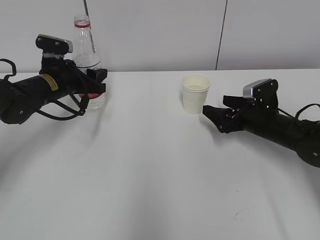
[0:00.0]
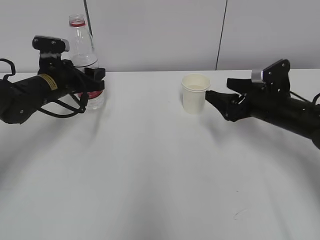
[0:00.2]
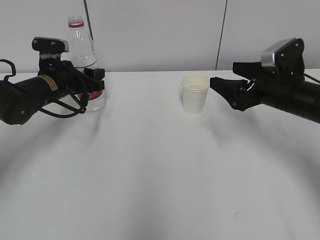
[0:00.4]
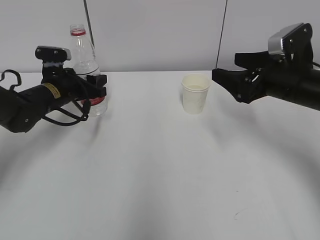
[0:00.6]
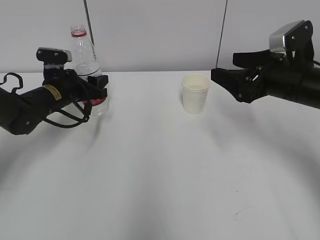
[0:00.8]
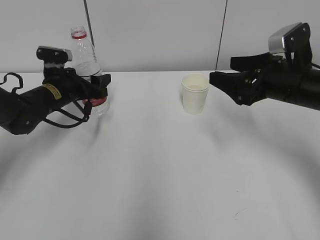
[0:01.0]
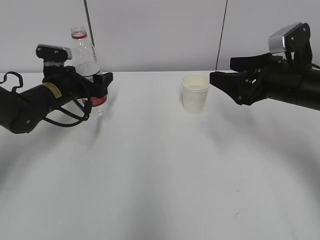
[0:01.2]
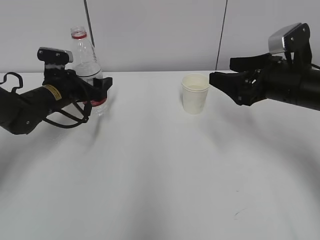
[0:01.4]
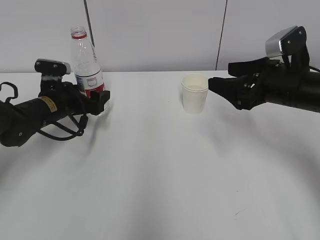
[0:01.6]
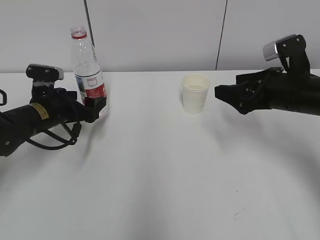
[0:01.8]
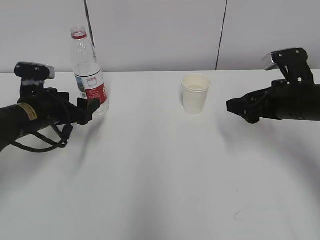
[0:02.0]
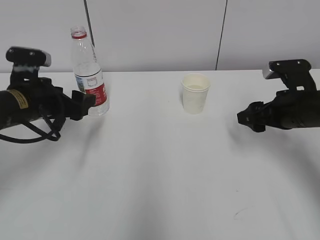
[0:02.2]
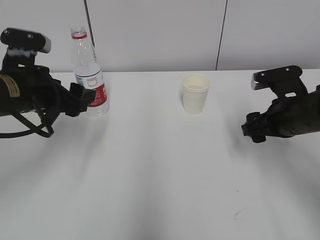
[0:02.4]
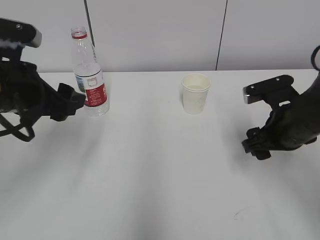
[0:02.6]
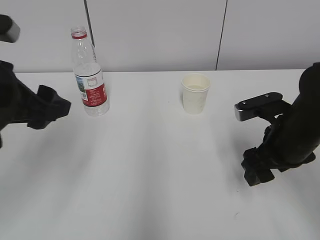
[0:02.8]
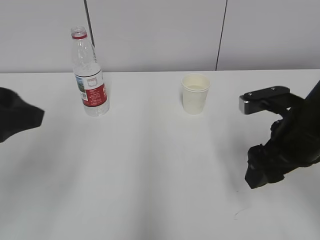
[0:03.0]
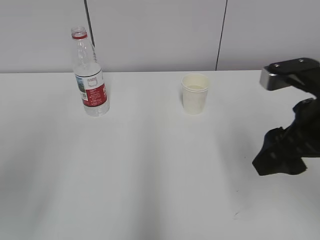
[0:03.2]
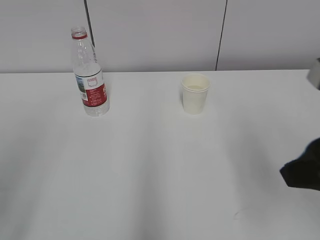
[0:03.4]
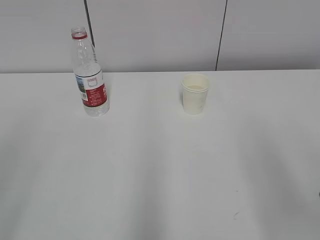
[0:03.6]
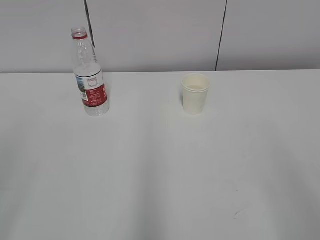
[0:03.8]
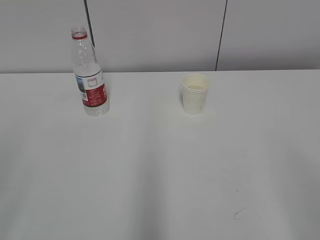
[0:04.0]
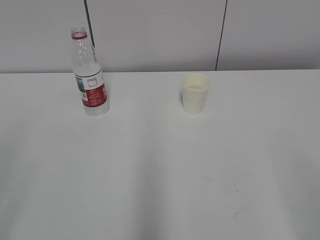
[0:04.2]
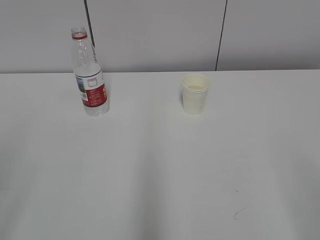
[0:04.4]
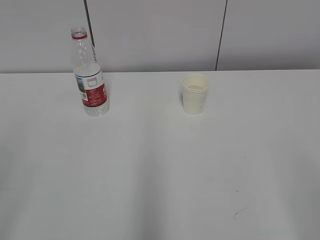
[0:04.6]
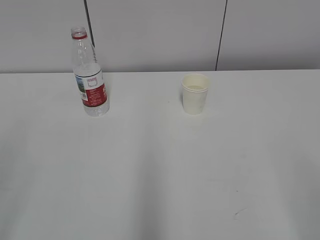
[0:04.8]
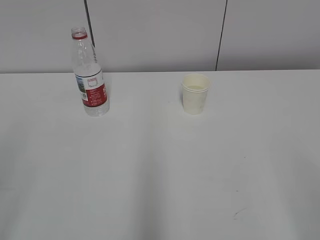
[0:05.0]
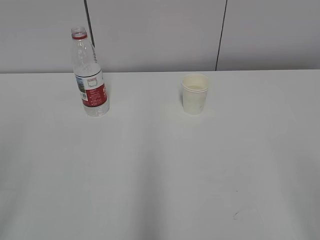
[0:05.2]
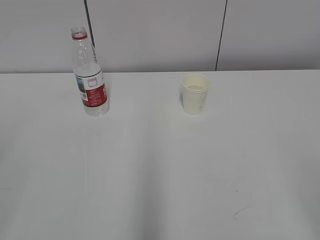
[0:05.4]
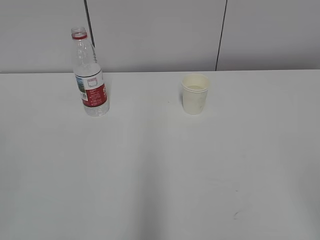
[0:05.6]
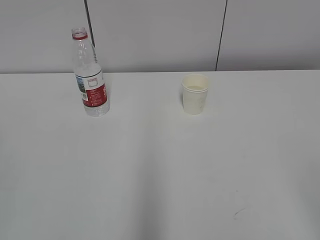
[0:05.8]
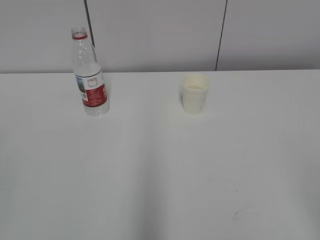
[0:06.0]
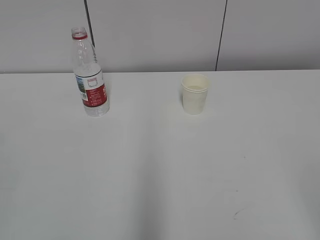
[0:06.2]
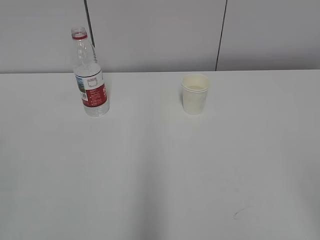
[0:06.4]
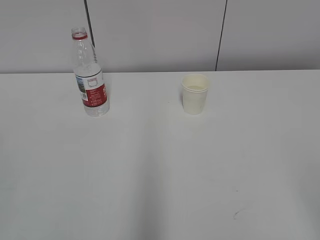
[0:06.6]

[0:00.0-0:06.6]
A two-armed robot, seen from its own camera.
0:00.0 to 0:01.6: The left gripper opens up, while the right gripper goes approximately 15 cm upward and backward, and closes up.
0:01.6 to 0:03.2: The left gripper heads backward and upward, covering some 35 cm. Meanwhile the right gripper heads backward and upward, covering some 10 cm.
0:03.2 to 0:05.0: The left gripper goes some 10 cm backward and to the left. Meanwhile the right gripper moves backward, approximately 20 cm.

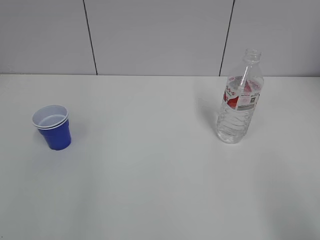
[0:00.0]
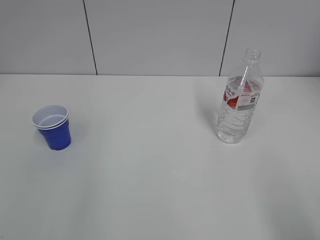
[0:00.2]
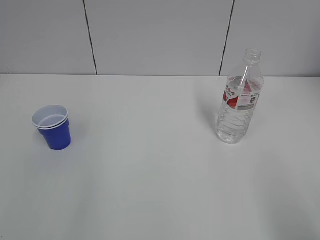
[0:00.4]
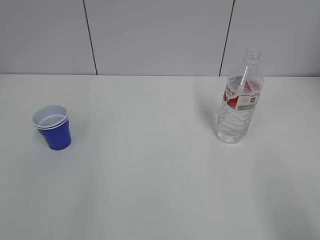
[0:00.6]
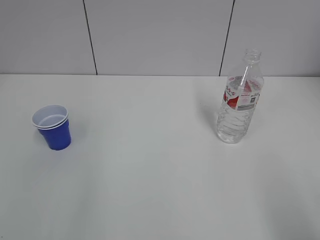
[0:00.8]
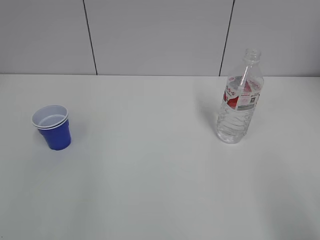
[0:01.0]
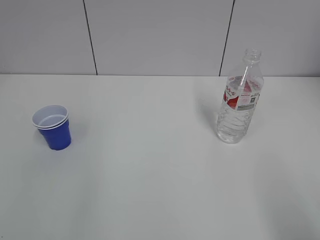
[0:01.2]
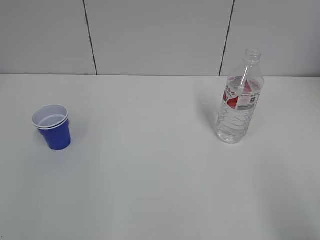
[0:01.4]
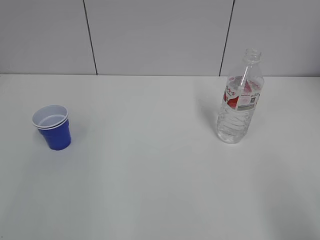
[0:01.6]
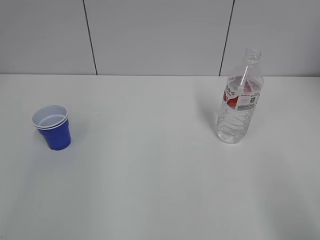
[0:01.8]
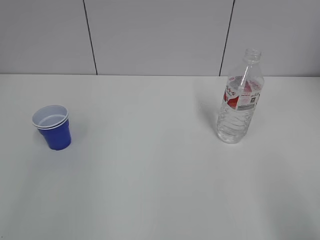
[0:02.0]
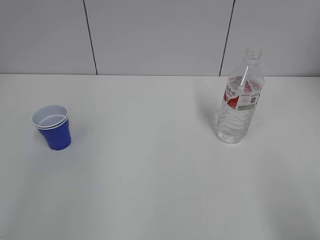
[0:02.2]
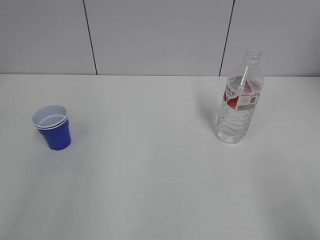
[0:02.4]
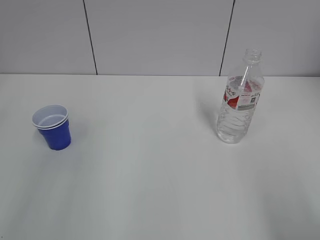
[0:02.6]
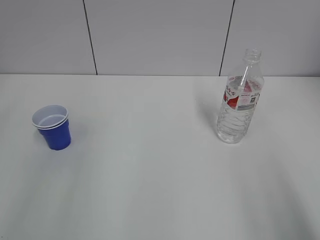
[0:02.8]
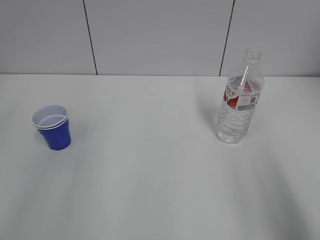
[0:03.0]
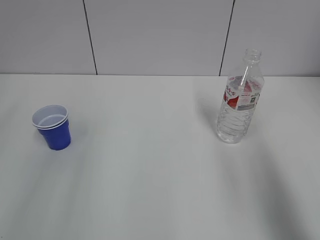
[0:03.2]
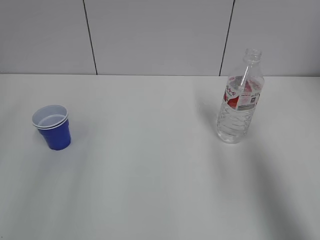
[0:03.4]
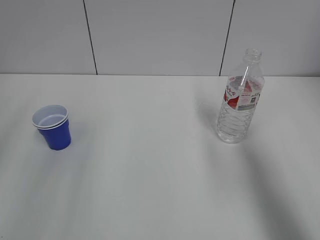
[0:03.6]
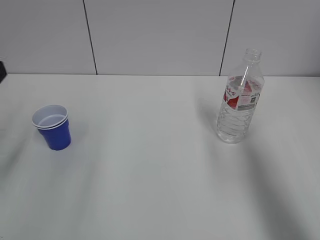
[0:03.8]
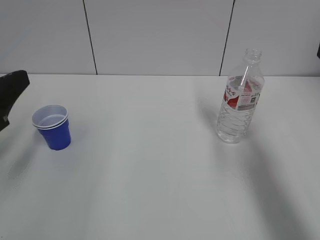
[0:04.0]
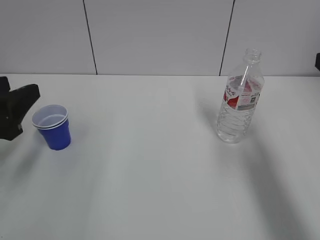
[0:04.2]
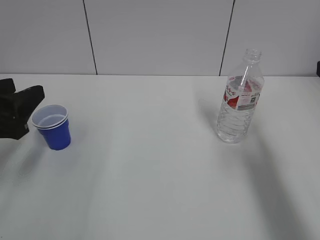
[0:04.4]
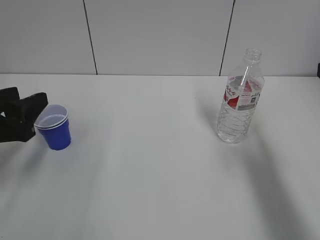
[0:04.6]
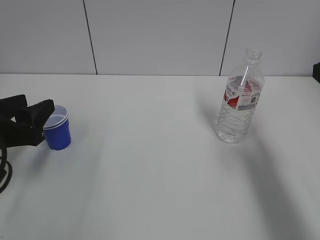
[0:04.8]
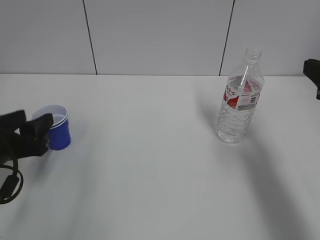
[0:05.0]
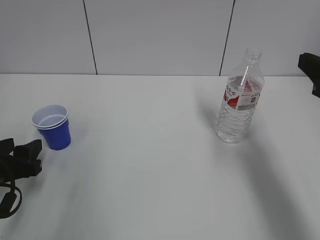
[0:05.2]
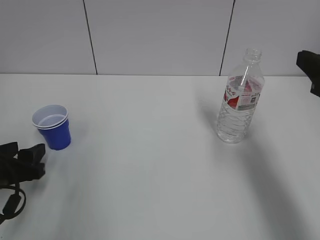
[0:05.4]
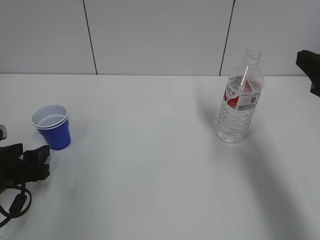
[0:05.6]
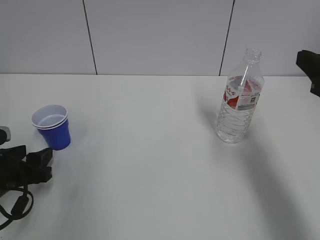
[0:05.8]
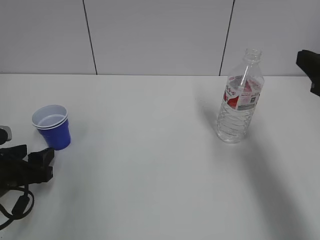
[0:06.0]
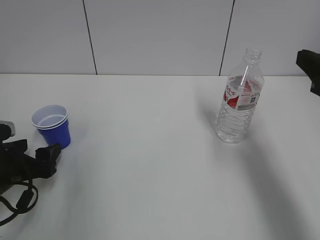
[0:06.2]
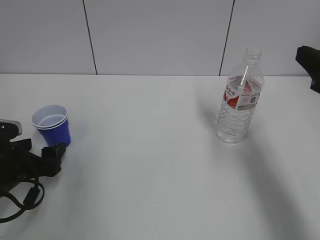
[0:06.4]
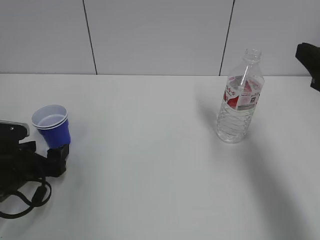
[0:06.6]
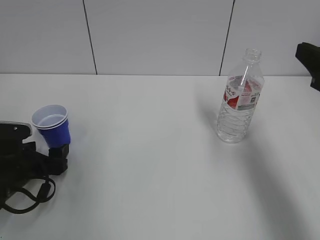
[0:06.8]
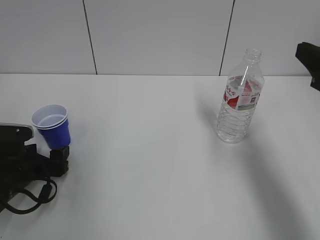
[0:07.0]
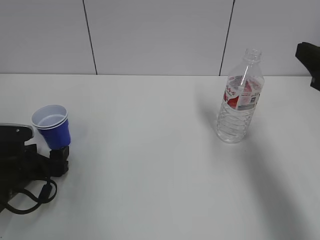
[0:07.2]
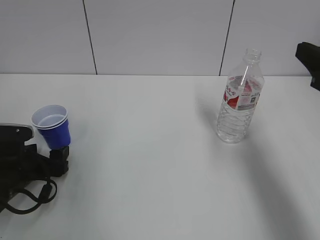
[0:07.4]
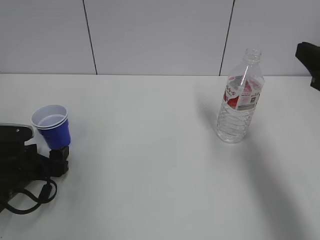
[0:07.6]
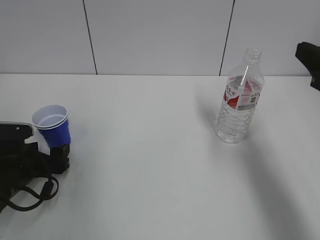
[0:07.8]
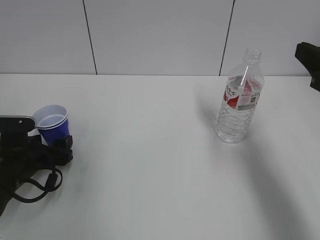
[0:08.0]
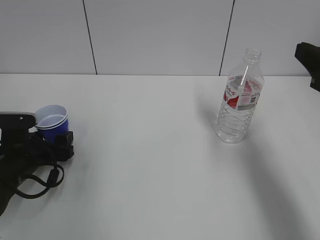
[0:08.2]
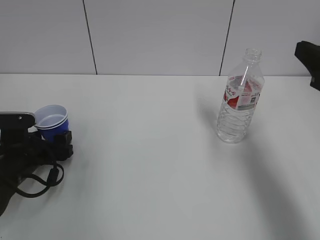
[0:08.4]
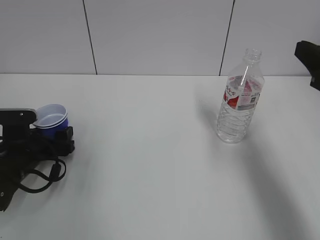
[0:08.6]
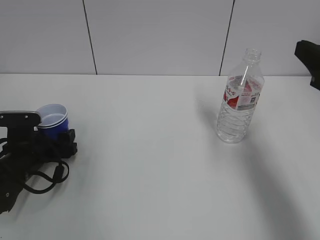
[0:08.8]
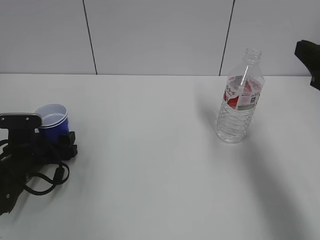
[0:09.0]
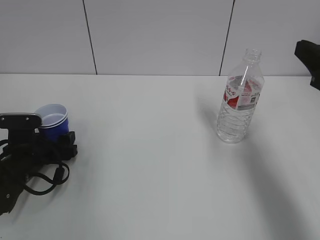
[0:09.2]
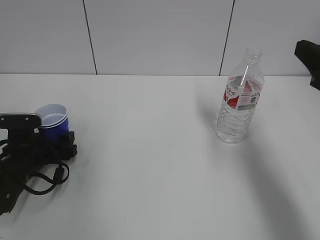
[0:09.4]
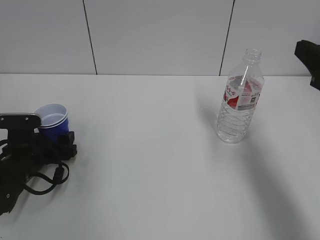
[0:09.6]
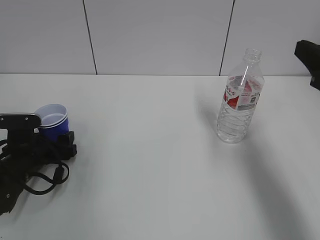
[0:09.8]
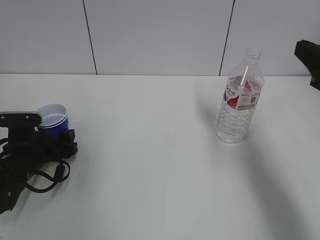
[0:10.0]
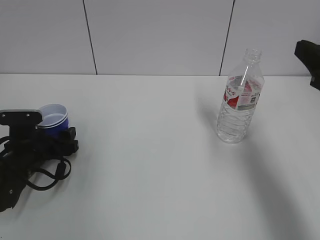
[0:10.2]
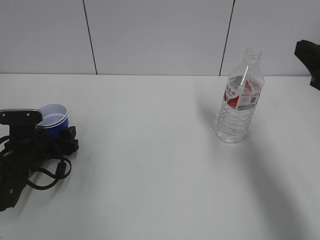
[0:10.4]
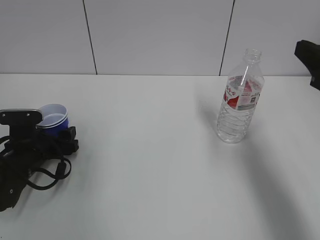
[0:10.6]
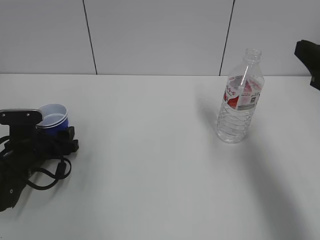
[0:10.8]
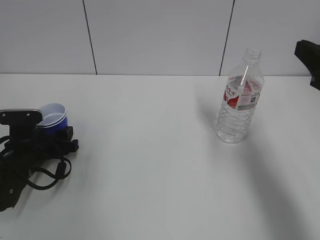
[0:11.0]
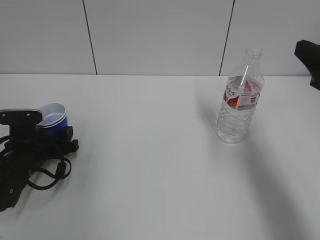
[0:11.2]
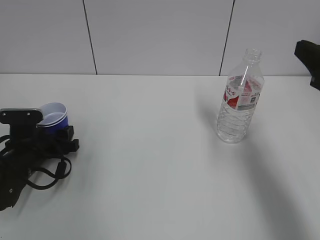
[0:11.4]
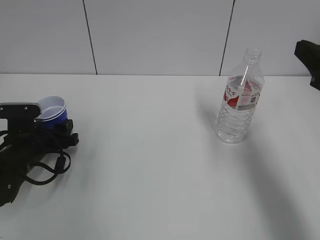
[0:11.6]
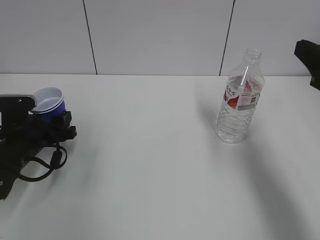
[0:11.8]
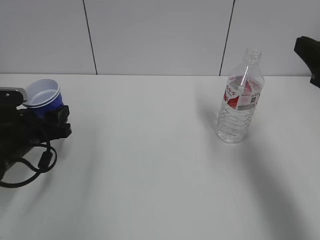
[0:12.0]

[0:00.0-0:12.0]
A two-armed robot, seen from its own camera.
Step, 0:00.0 to 0:11.4: Grab the paper cup with the left hand.
0:03.0 to 0:04.4: The right gripper heads forward and downward, covering about 20 cm; the left gripper goes roughly 15 cm forward, downward and to the right.
0:04.4 to 0:06.0: The right gripper closes. Meanwhile the left gripper goes some 15 cm downward.
0:06.0 to 0:07.6: The left gripper moves roughly 5 cm.
0:07.6 to 0:09.0: There are only small adjustments of the grippers.
0:09.0 to 0:10.4: Both grippers stay about where they are.
0:10.4 to 0:12.0: The left gripper is displaced upward by about 5 cm, and closes up.

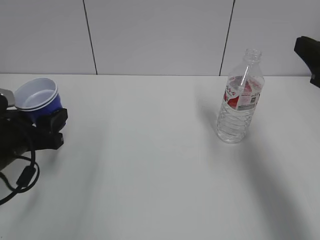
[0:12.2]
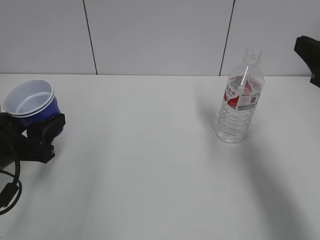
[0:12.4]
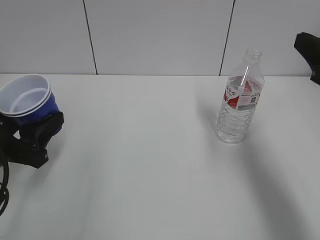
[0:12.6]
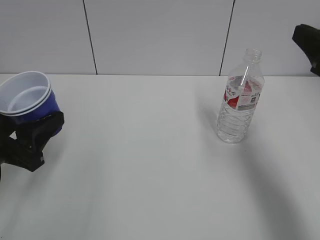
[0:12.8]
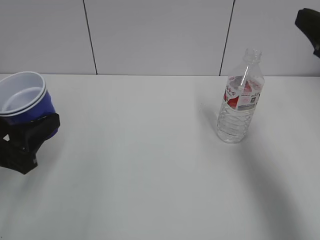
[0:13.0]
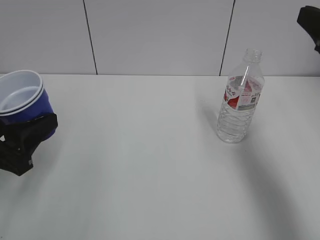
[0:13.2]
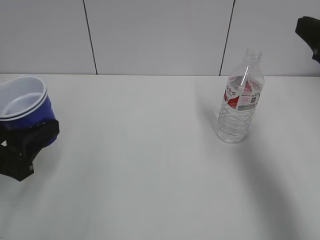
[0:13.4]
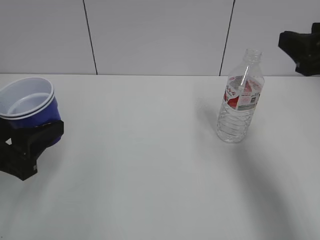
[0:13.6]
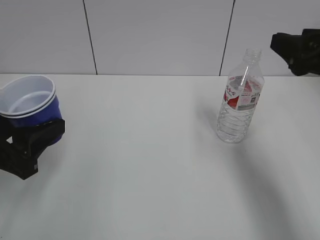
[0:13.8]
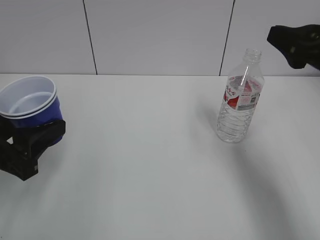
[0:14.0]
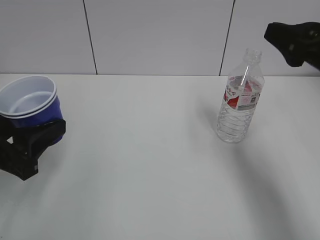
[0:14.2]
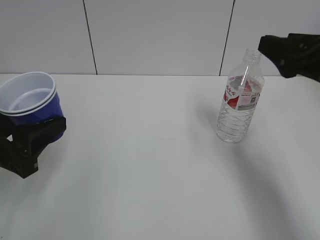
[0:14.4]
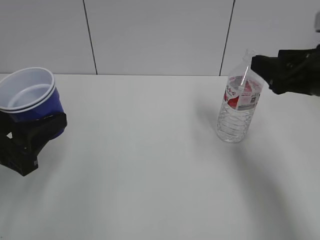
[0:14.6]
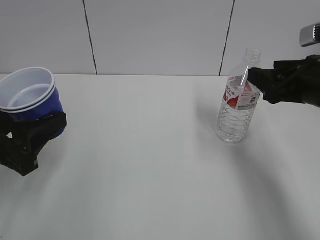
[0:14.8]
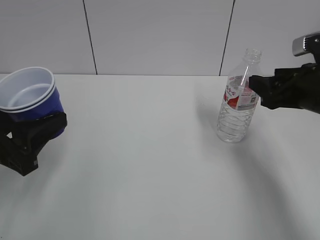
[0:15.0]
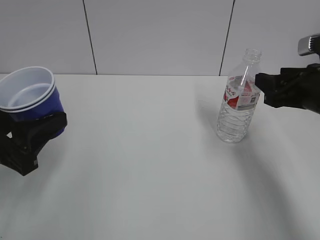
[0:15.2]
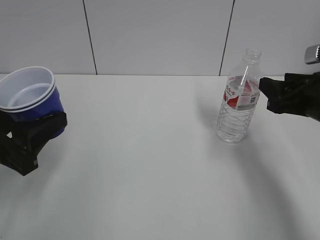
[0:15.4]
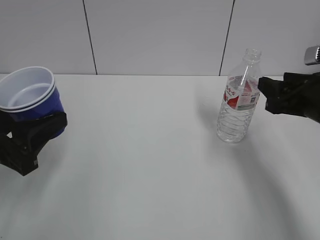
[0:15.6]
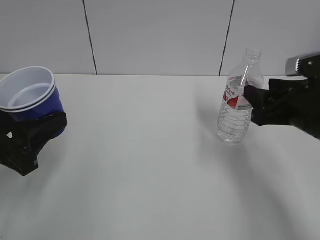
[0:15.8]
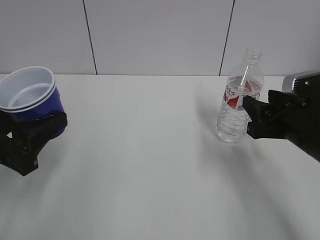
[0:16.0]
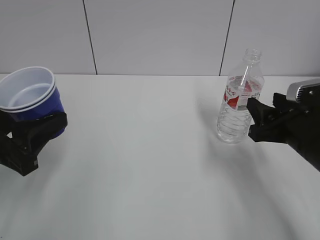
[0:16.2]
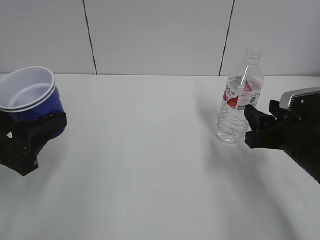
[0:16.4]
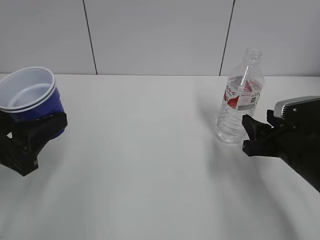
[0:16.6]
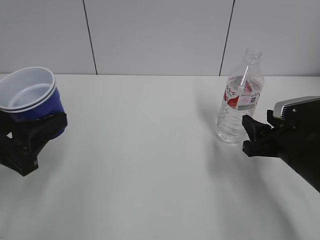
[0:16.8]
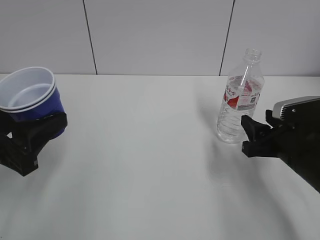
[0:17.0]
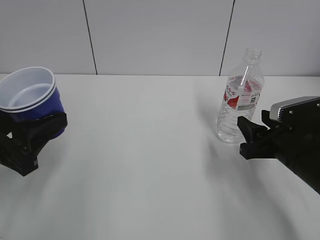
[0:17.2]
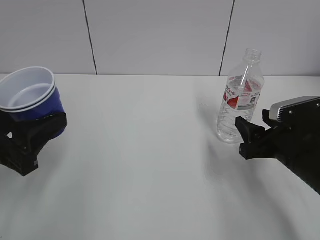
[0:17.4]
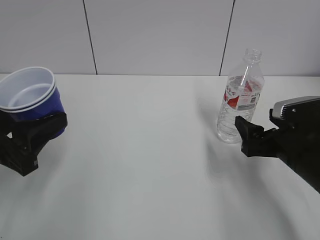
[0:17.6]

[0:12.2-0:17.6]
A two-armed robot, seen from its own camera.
0:12.2 to 0:13.6: The left gripper moves backward and upward, some 10 cm.
0:13.6 to 0:15.0: The right gripper shifts some 5 cm downward.
0:15.0 to 0:16.2: The right gripper goes roughly 5 cm downward.
0:16.2 to 0:17.6: The right gripper opens its fingers.
